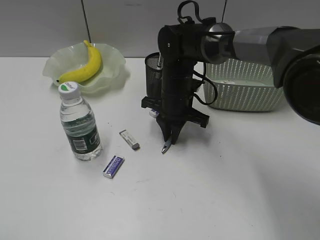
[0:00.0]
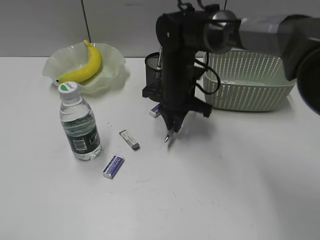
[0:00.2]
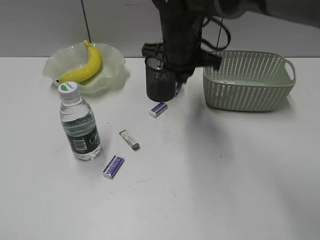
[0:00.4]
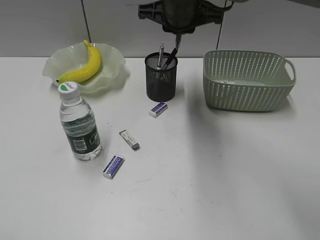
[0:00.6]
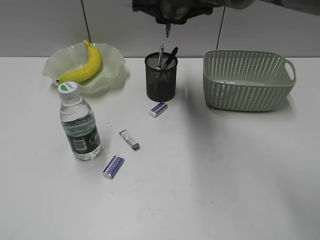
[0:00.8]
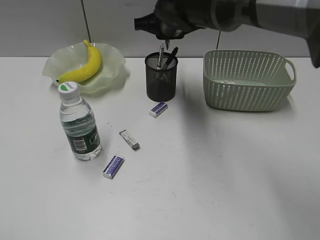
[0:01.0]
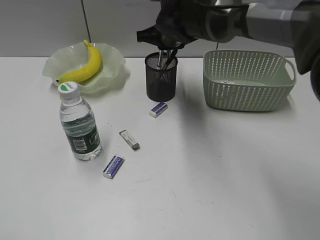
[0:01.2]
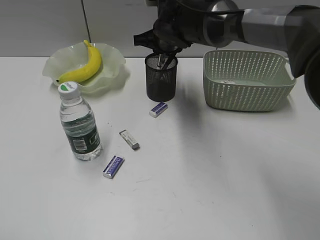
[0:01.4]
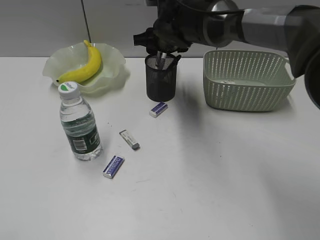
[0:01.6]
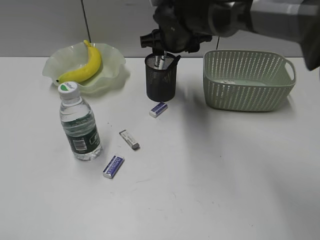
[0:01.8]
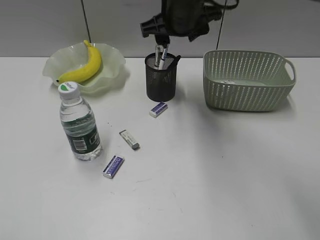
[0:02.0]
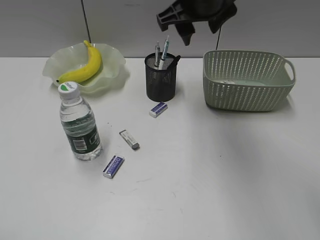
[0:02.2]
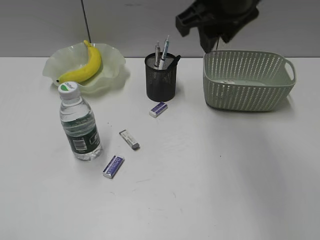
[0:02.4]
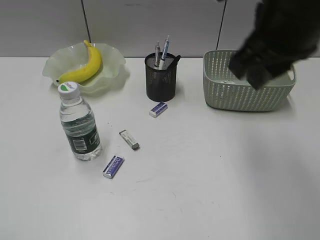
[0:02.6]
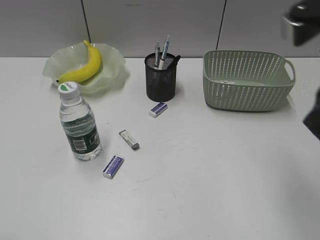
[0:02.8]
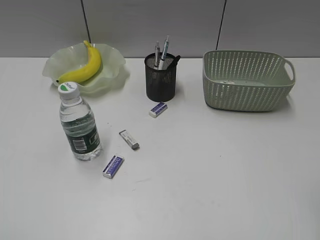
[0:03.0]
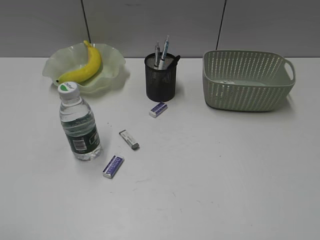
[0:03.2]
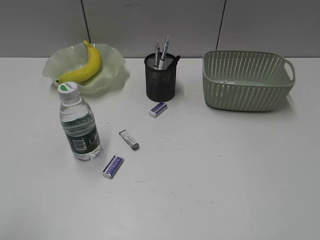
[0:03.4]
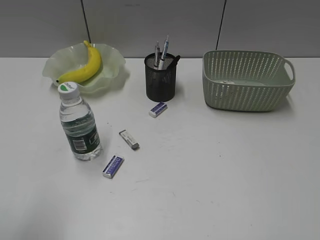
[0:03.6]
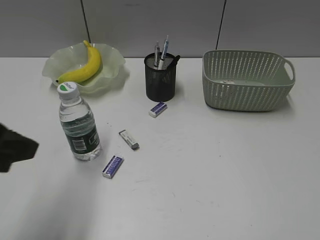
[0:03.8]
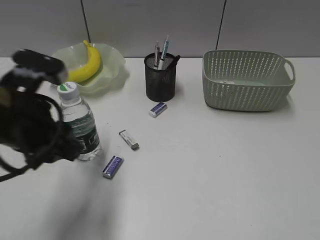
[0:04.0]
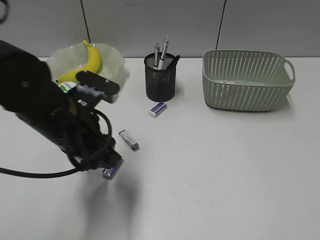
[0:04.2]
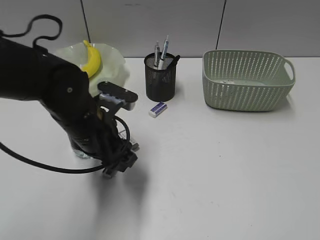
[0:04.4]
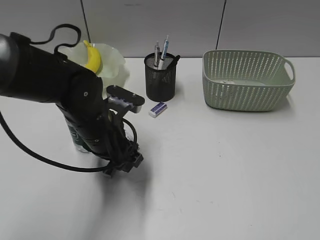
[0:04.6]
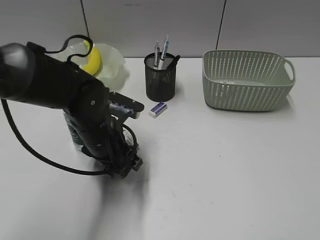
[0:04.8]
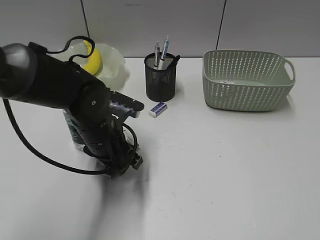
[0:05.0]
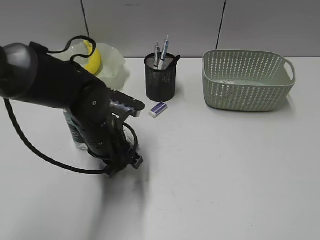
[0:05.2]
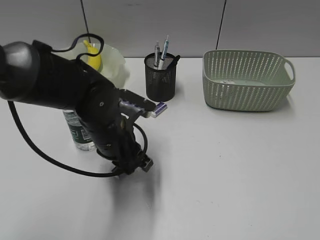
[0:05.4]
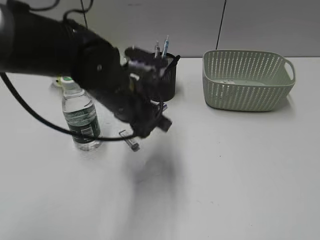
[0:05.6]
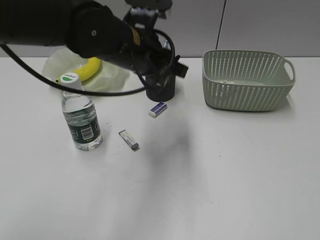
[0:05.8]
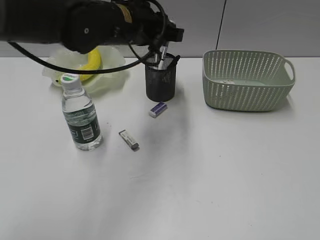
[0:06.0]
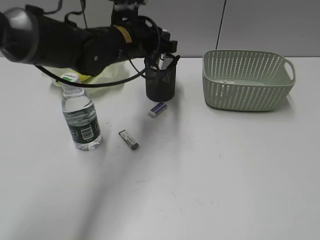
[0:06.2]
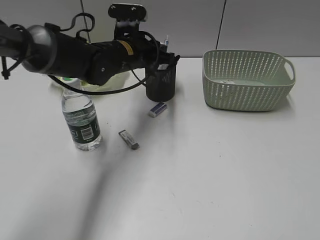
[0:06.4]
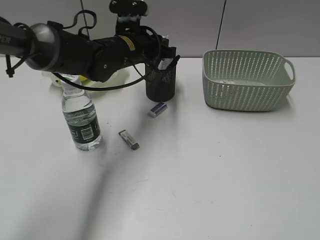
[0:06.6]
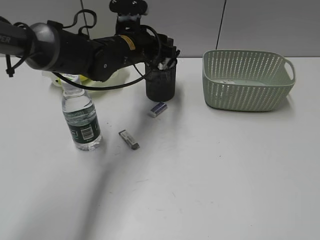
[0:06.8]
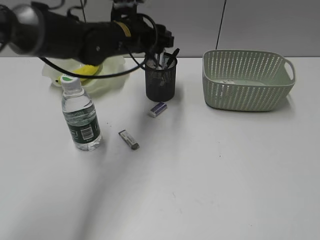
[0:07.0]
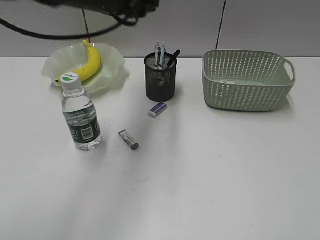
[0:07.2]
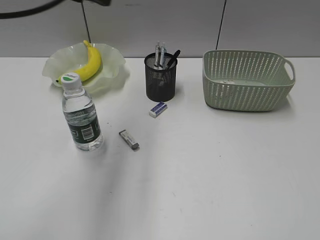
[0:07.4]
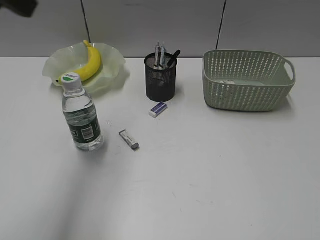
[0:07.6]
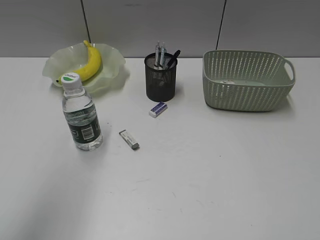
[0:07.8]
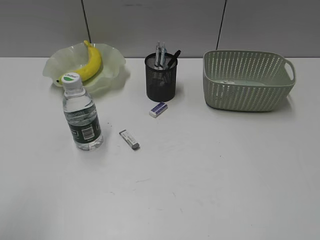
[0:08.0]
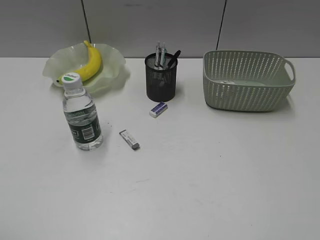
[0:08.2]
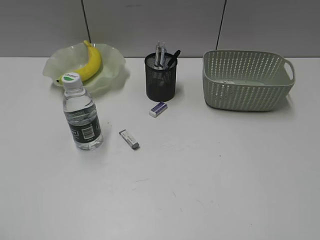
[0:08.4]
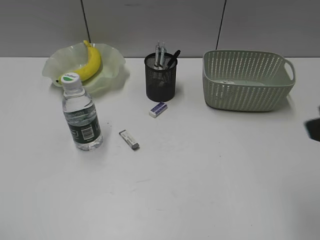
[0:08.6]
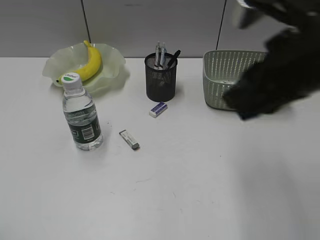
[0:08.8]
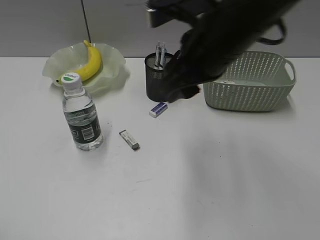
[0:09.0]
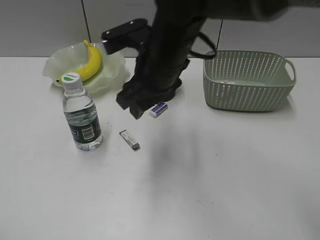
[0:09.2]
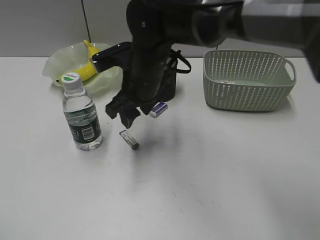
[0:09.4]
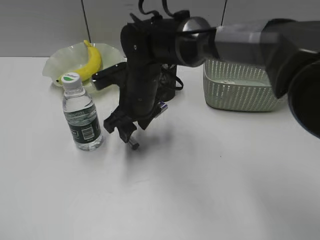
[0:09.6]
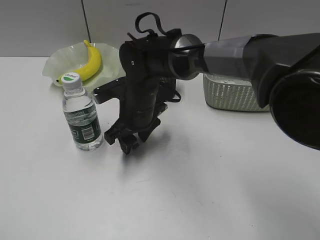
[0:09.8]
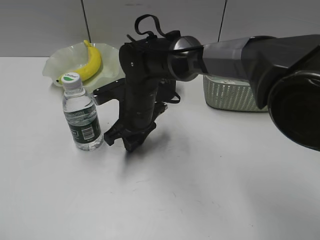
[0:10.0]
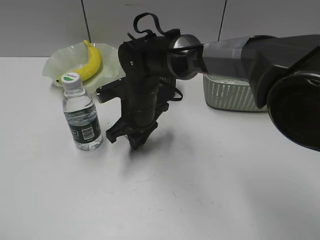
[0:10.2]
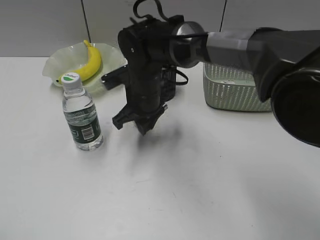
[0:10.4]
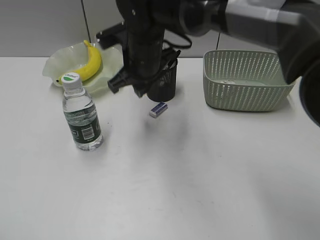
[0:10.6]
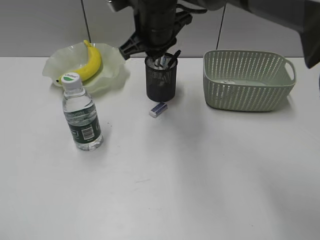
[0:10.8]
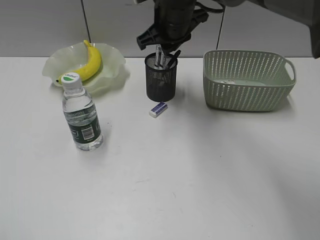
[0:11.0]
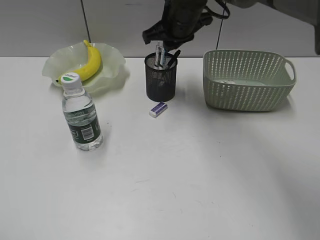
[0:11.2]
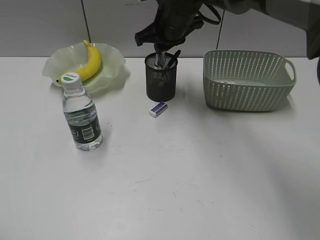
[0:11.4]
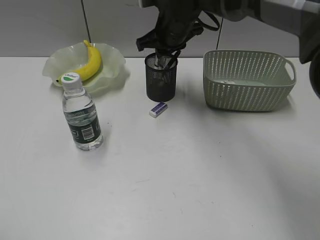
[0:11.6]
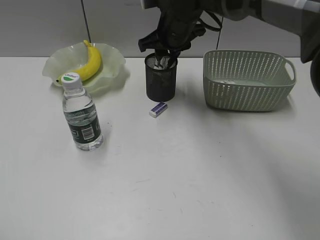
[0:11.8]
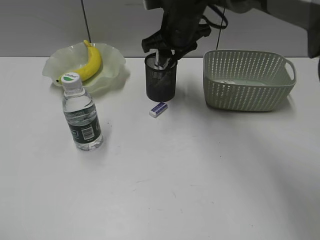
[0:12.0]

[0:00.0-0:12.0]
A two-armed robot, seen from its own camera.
Step, 0:00.0 to 0:01.8: Place the blue pen in pen holder with right gripper.
Step, 0:02.0 to 0:05.2: Grasp the eraser with left gripper.
Step, 0:05.4 to 0:06.8: Place the eraser in pen holder with left gripper.
Step, 0:07.0 to 0:10.0: Grasp the eraser with right gripper.
Step, 0:10.2 to 0:11.8: Place the eraser in pen holder with right gripper.
0:00.0 to 0:01.6: The right gripper moves upward and forward, roughly 10 cm, and opens.
0:01.6 to 0:03.0: The right gripper travels backward and to the right by some 40 cm, and closes up.
0:03.0 to 0:04.4: The right gripper shifts roughly 15 cm backward and to the right. The left gripper travels forward, to the right and downward by approximately 35 cm.
0:04.4 to 0:06.0: The left gripper is displaced upward, forward and to the right by roughly 15 cm, and closes its fingers.
0:06.0 to 0:07.6: The left gripper travels upward, to the left and backward by some 25 cm, and opens.
0:07.6 to 0:09.0: The left gripper moves backward, to the left and downward, roughly 30 cm, while the right gripper moves forward and to the left, approximately 35 cm.
0:09.0 to 0:10.4: The right gripper moves downward, to the left and forward, roughly 20 cm, and closes.
0:10.4 to 0:12.0: The right gripper shifts roughly 15 cm upward, forward and to the right, and opens up.

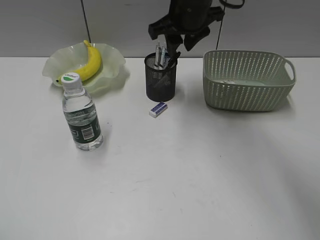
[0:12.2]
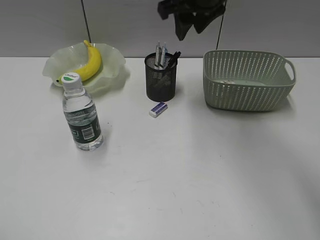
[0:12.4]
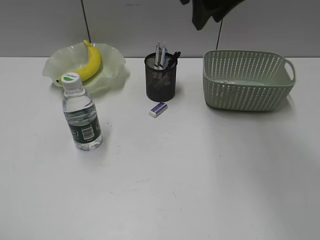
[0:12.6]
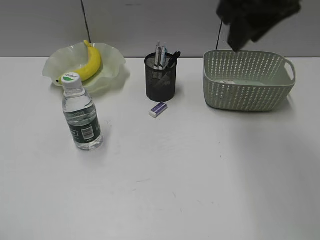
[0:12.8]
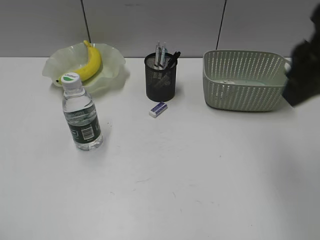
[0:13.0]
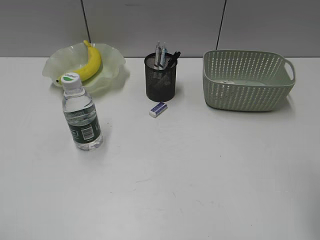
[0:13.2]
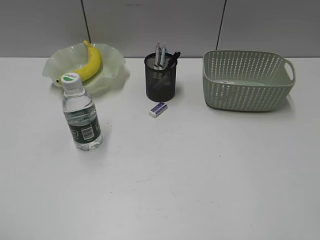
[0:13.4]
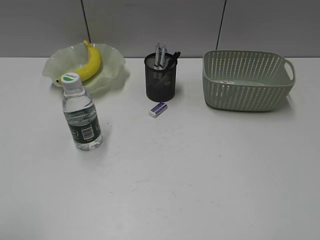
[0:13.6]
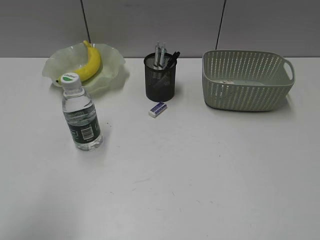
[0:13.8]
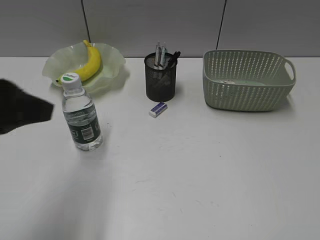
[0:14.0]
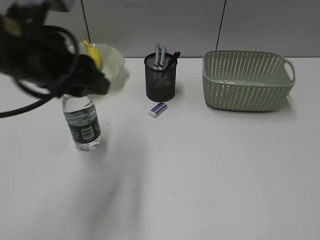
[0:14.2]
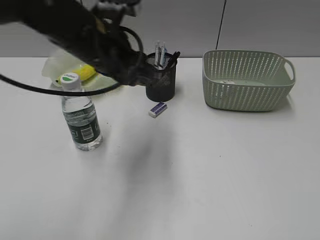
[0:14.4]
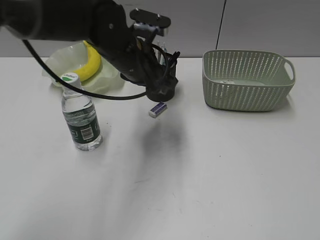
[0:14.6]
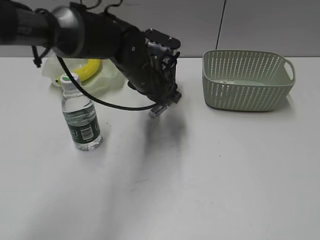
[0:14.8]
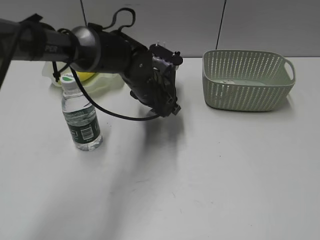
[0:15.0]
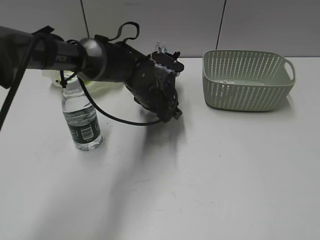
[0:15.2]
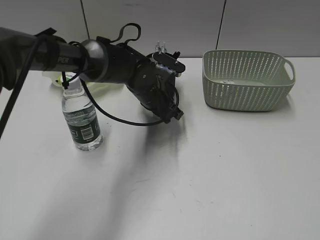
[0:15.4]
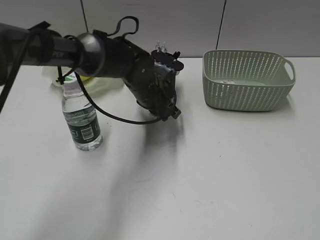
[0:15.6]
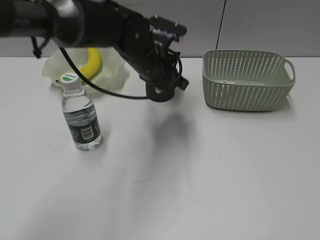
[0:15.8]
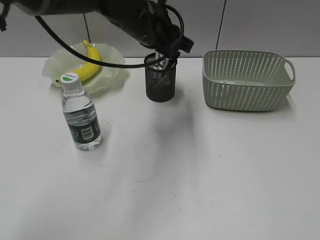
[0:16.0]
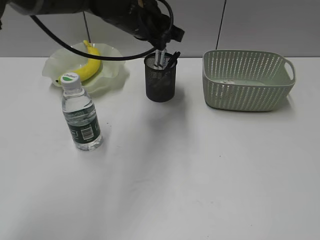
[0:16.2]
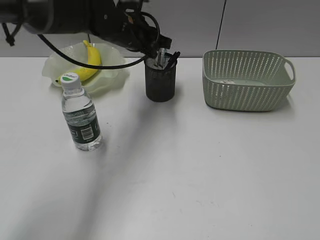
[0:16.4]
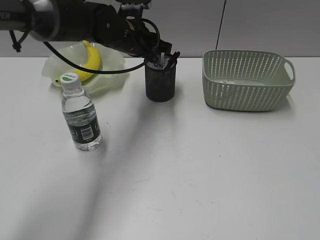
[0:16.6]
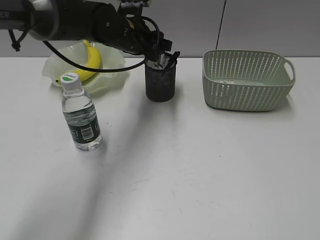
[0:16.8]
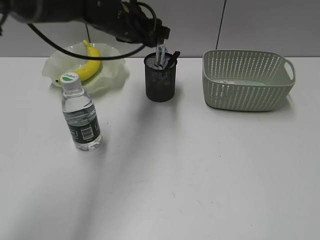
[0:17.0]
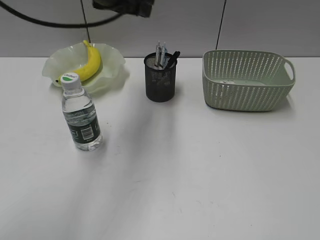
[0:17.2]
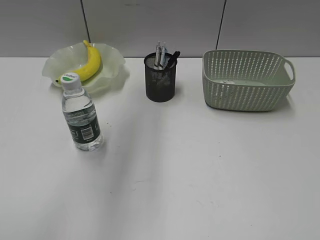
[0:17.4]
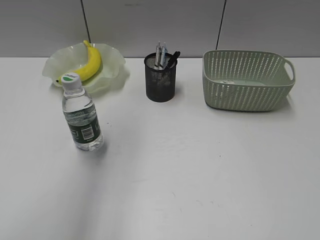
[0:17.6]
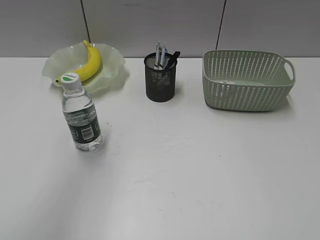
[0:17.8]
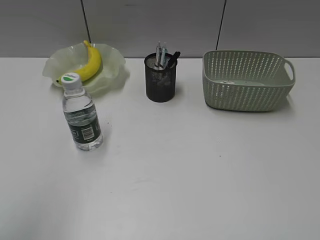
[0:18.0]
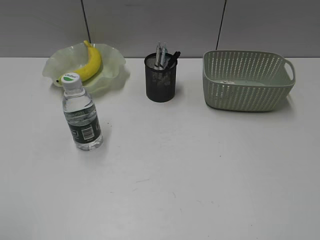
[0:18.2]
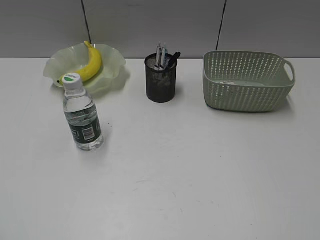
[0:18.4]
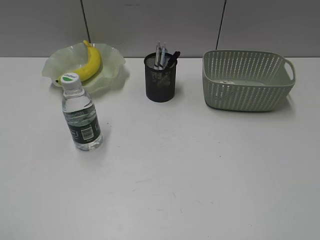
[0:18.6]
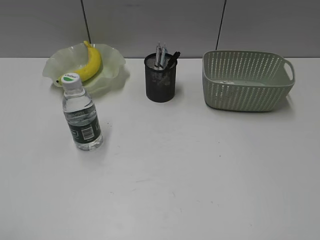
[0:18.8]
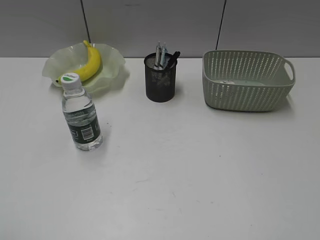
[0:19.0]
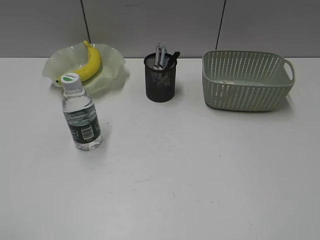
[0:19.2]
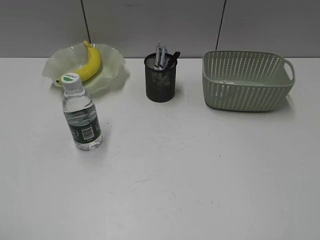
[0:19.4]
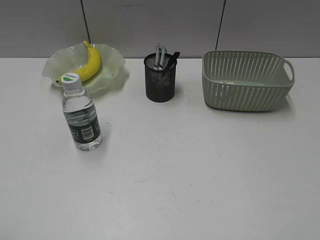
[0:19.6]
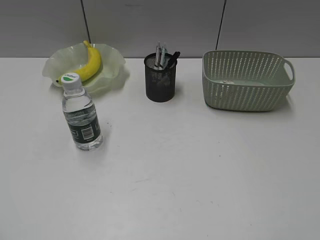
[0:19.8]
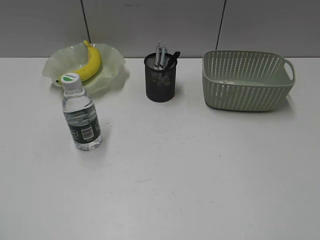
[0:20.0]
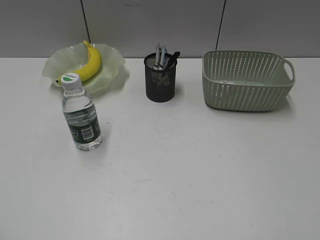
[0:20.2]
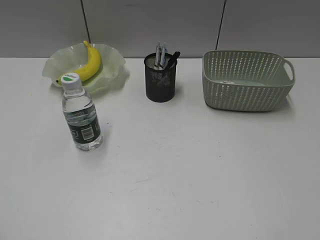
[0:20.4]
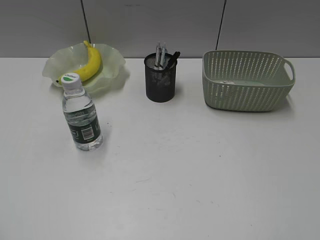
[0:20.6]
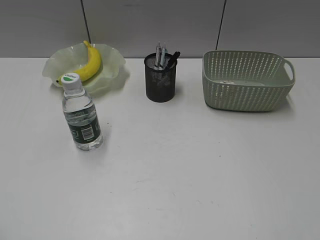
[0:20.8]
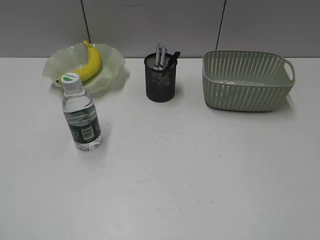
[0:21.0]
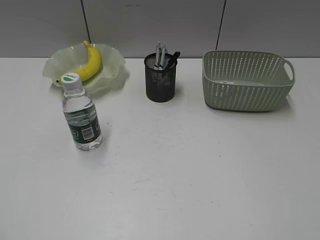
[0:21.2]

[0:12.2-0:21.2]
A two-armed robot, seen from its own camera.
Step, 0:12.2 to 0:15.4: Grasp the eraser with left gripper.
Step, 0:15.6 to 0:16.8: Place the eraser in pen holder with left gripper.
0:12.2 to 0:13.8: The right gripper heads backward and to the right, covering some 50 cm; the left gripper shifts some 10 cm forward and to the right.
0:13.8 to 0:15.2: The left gripper travels forward, to the right and downward by approximately 50 cm.
0:15.2 to 0:16.6: The left gripper goes some 10 cm upward, and closes up.
0:16.6 to 0:18.2: The left gripper goes approximately 50 cm backward and to the left.
0:19.8 to 0:21.2: Both grippers stay about where they are.

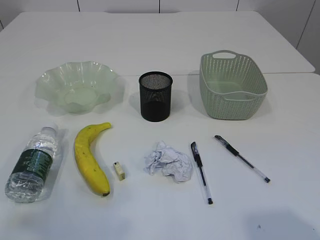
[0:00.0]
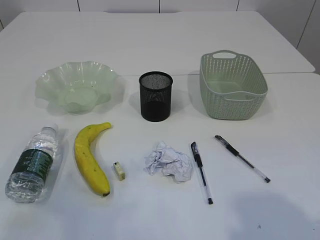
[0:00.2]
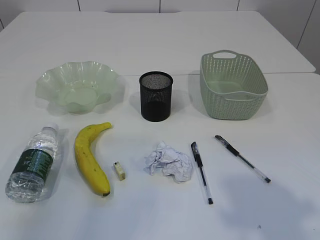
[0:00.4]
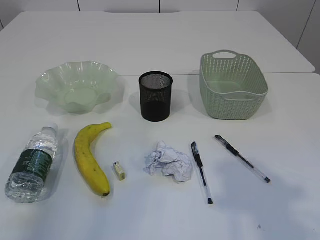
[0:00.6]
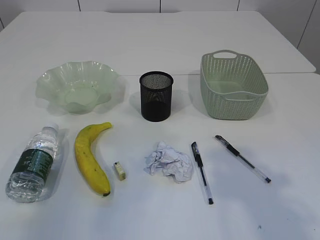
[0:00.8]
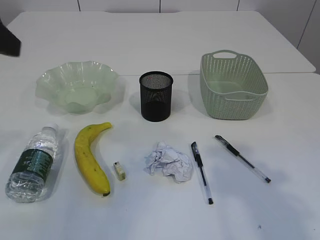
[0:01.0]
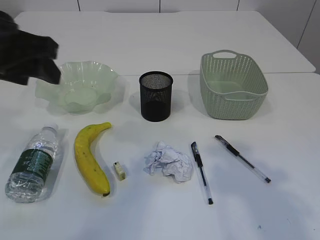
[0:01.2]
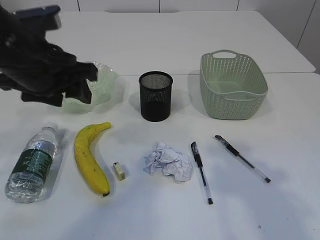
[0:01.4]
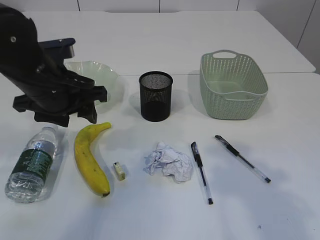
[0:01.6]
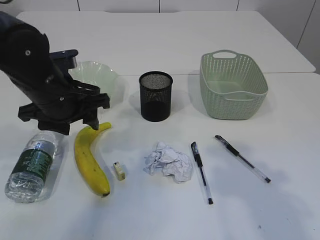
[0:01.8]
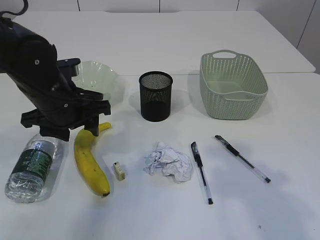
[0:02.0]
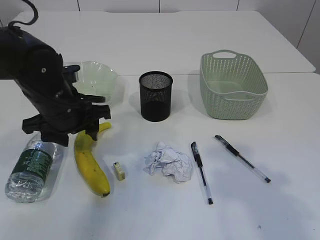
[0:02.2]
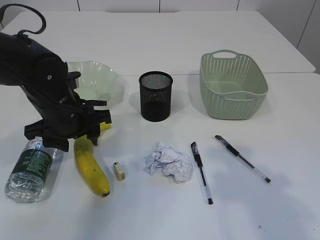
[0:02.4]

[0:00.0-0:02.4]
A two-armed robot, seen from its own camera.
0:00.0 to 0:01.2: The left gripper travels forward and to the right by roughly 25 cm. Meanwhile the right gripper travels forward by roughly 10 cm.
0:01.2 to 0:02.4: The left gripper is displaced downward and forward by some 20 cm.
